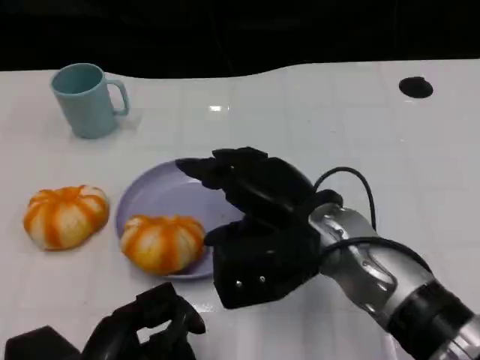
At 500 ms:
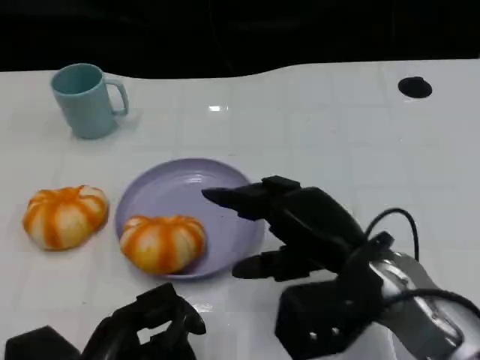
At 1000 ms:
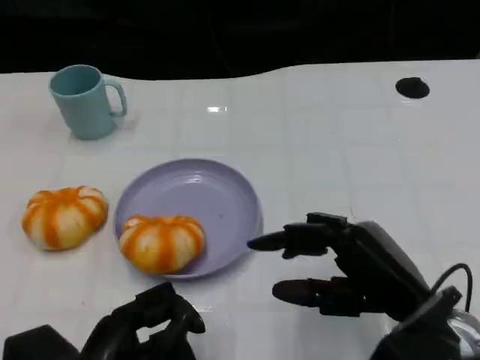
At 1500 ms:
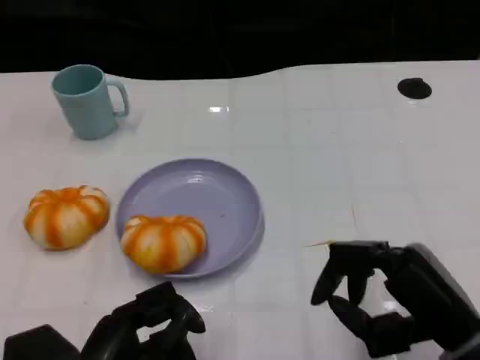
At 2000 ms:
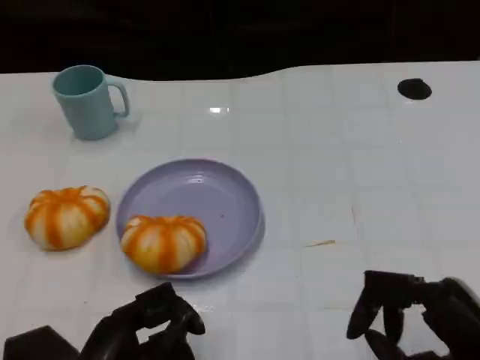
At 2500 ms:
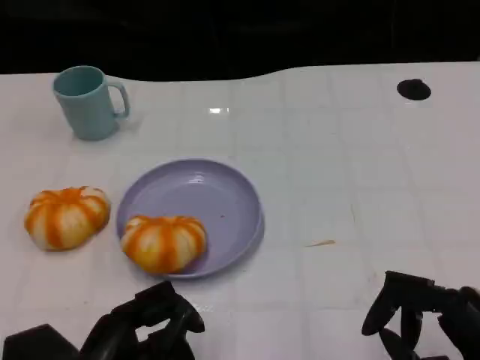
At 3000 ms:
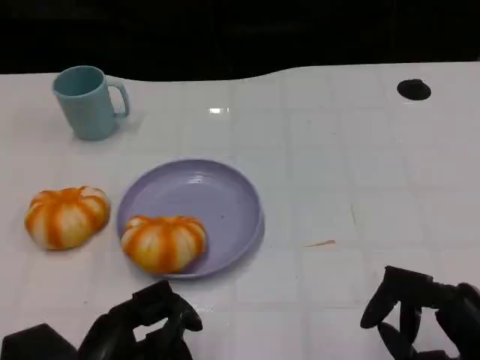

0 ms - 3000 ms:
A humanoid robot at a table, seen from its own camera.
Task of the whole recording: Grasp the bread from the table and place it into the plate.
0 ms - 1500 ms: The right hand travels to the right and backward by approximately 15 cm.
1500 ms - 3000 ms: The hands make only small movements.

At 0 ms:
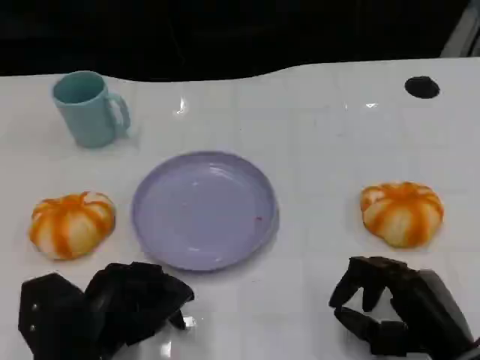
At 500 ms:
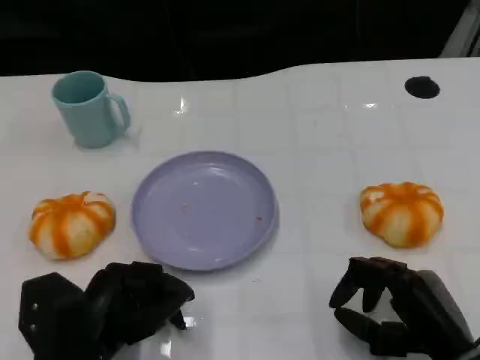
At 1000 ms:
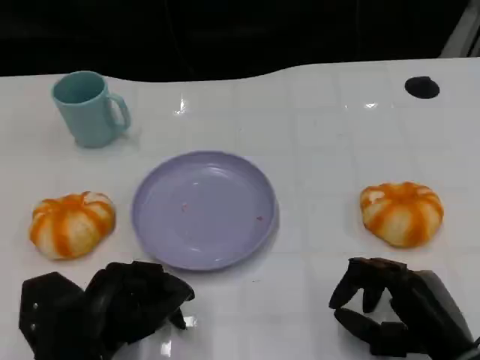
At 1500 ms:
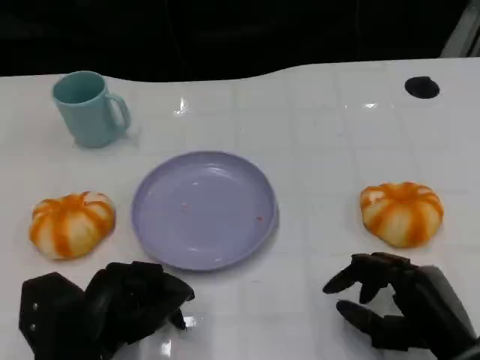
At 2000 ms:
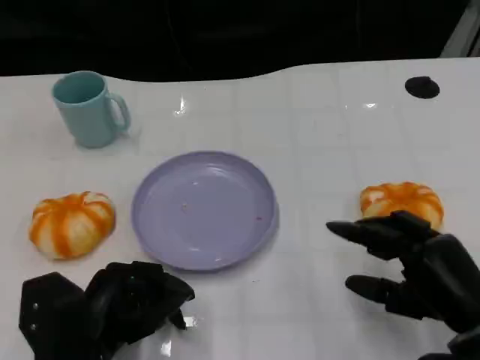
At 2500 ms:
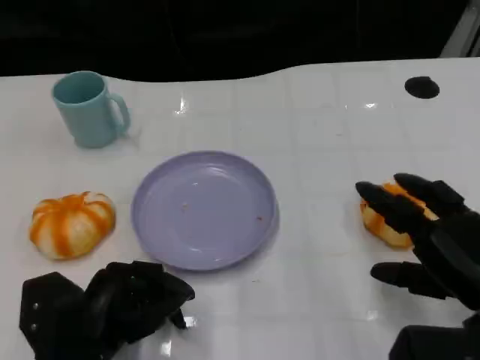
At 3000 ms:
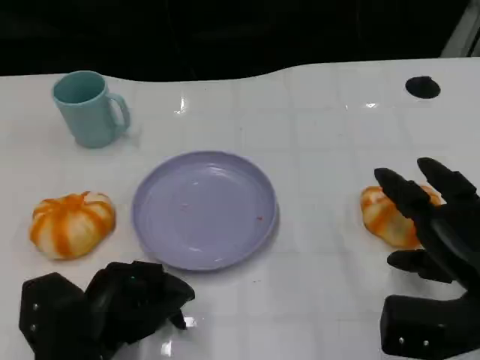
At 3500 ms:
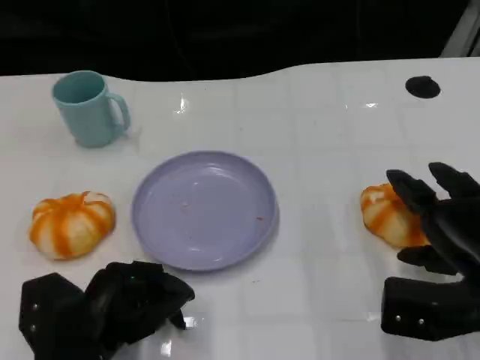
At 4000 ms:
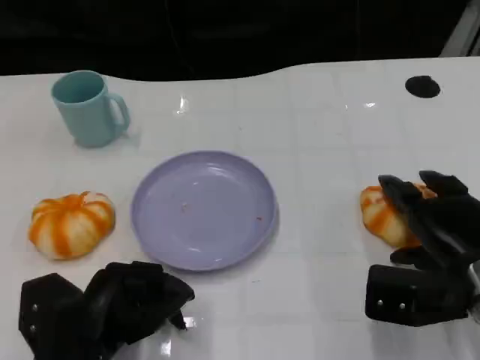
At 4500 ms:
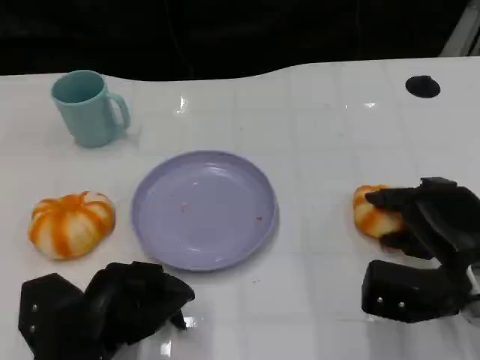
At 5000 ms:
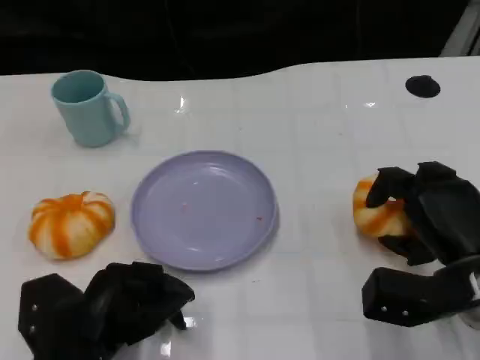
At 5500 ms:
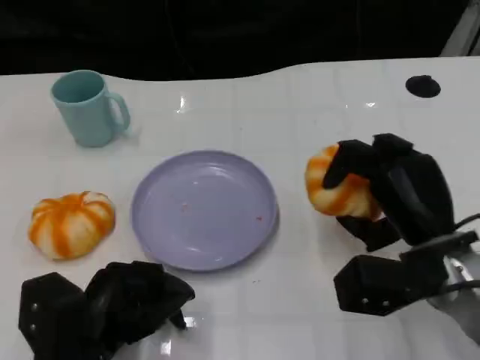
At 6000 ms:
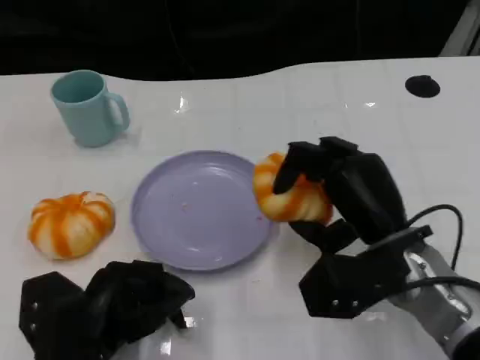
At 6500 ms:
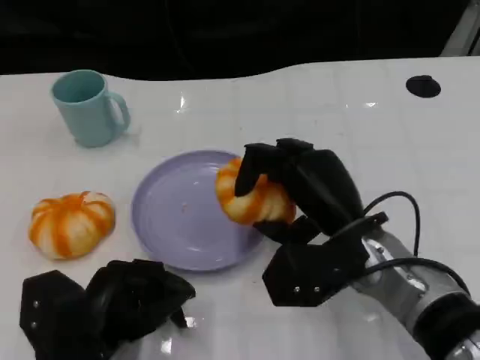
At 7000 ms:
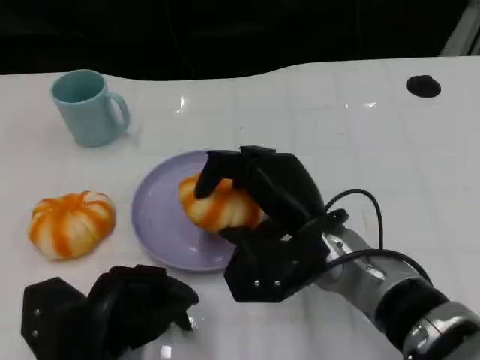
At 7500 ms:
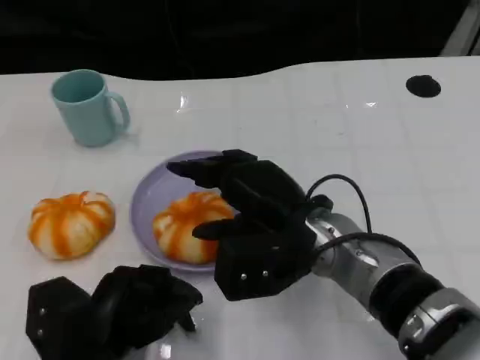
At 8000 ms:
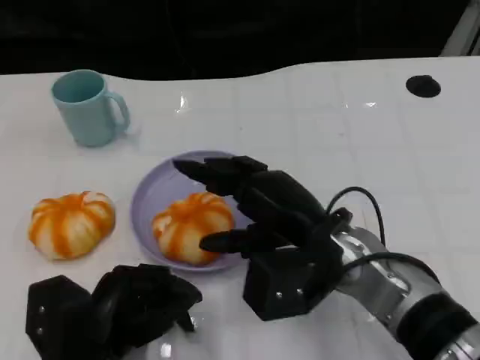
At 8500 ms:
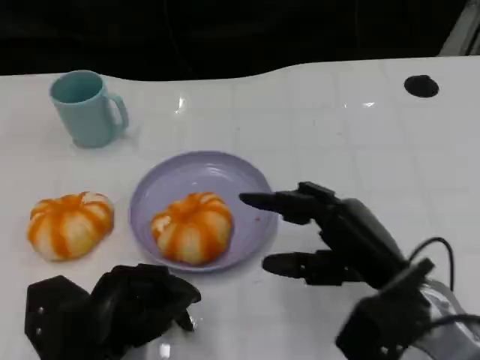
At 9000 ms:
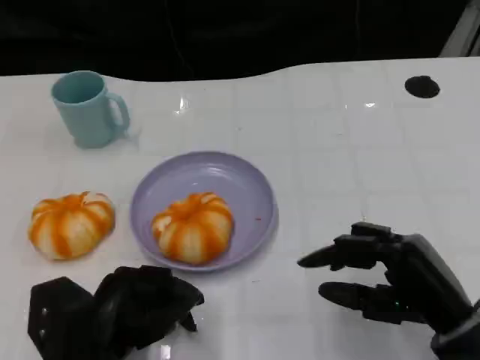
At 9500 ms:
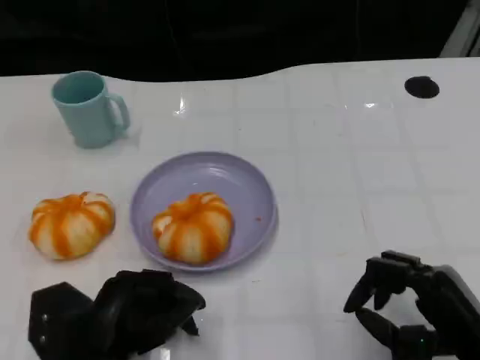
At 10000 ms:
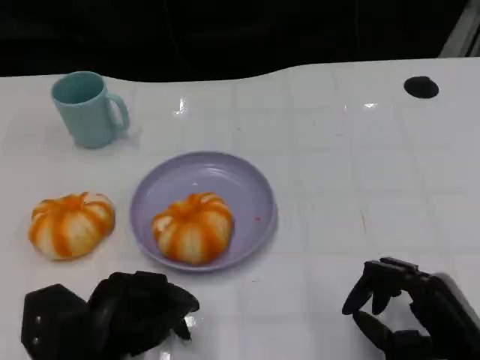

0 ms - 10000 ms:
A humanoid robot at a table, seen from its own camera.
Task of the whole recording: Grasp the bread from the table and place it into the plate.
0 ms - 2000 ms: The hands make only small movements.
2000 ms - 4000 ms: The right hand goes some 5 cm forward.
4000 ms - 6000 ms: The right hand shifts some 10 cm to the left.
8000 ms - 10000 ms: The right hand moves to the right, backward and downward, roughly 20 cm.

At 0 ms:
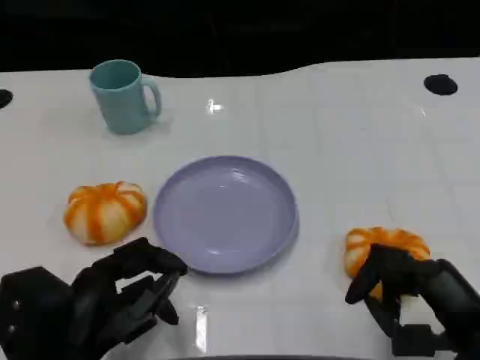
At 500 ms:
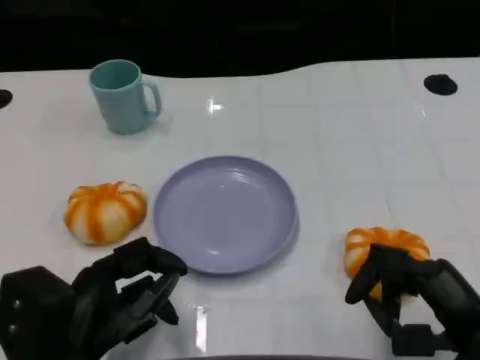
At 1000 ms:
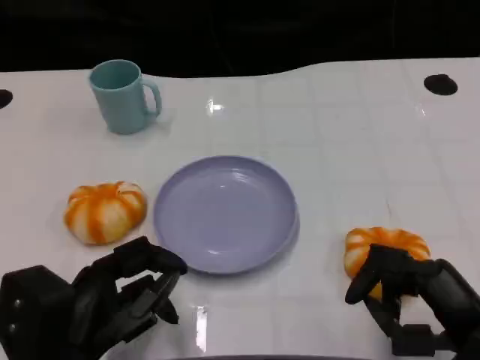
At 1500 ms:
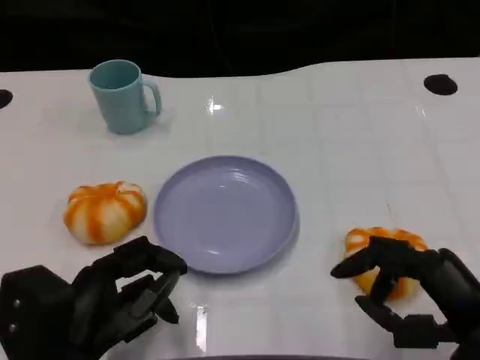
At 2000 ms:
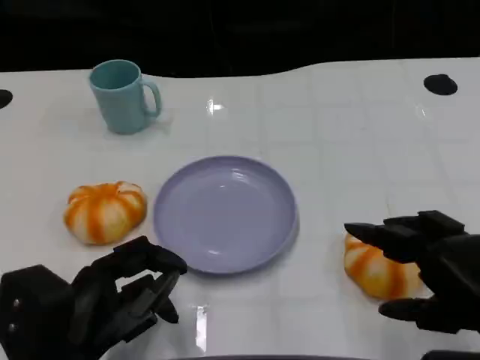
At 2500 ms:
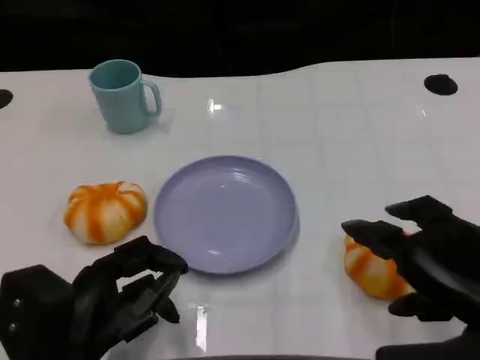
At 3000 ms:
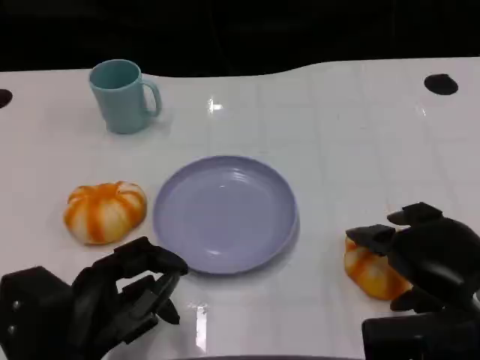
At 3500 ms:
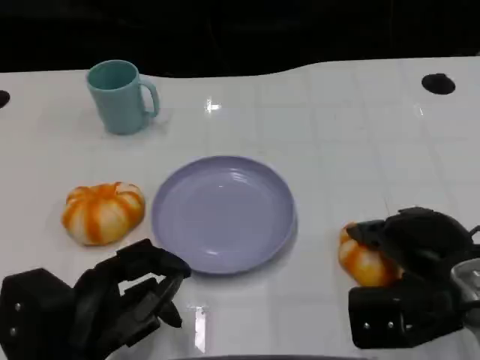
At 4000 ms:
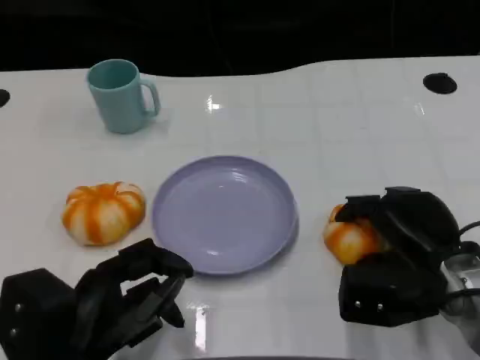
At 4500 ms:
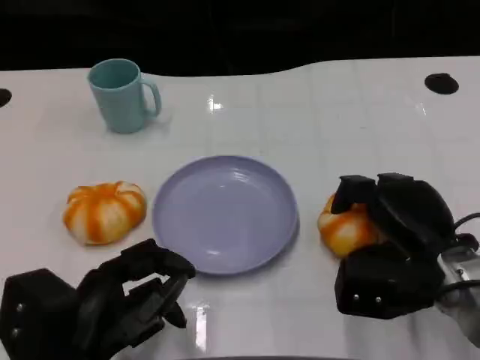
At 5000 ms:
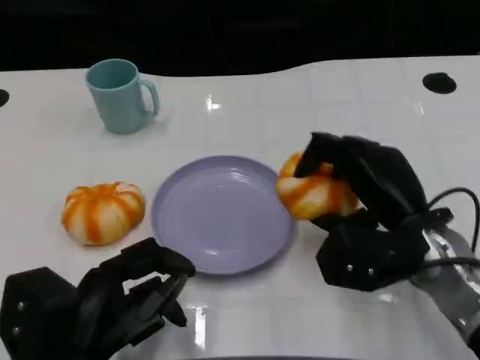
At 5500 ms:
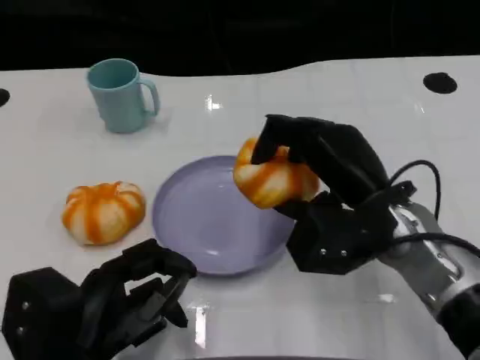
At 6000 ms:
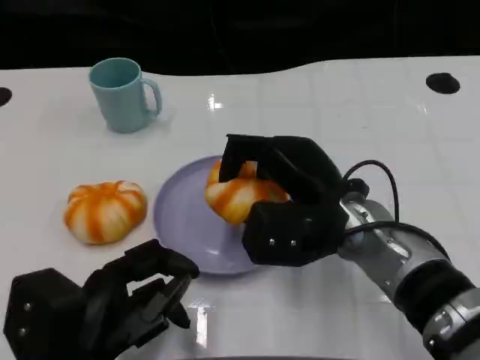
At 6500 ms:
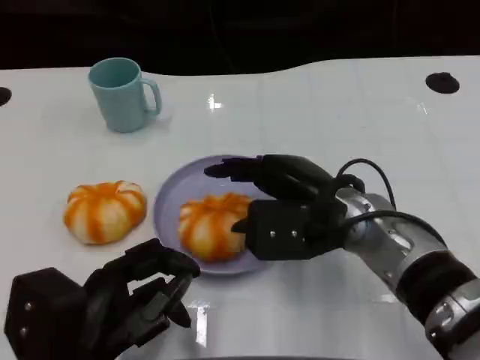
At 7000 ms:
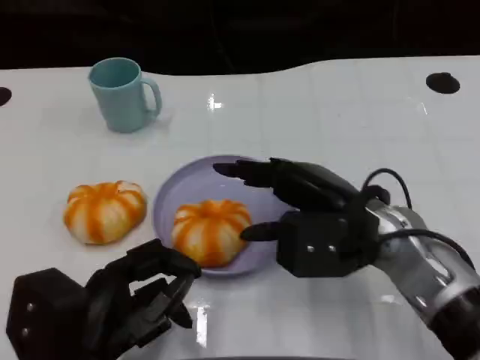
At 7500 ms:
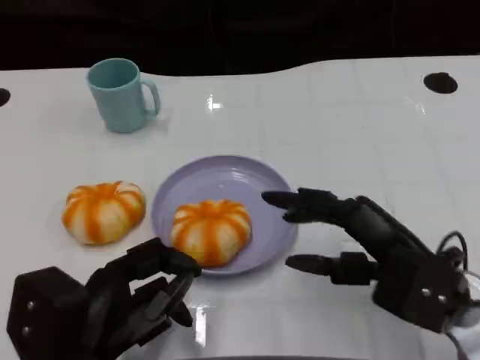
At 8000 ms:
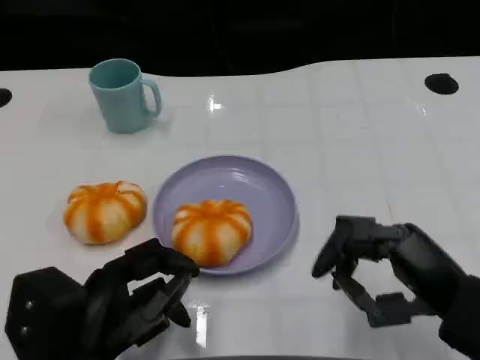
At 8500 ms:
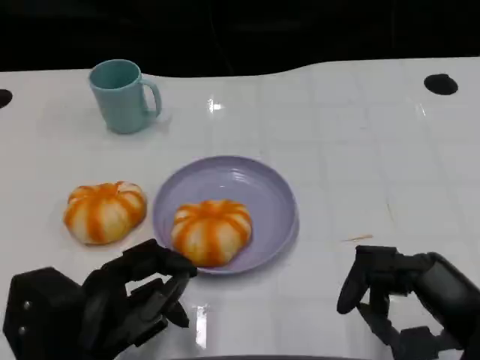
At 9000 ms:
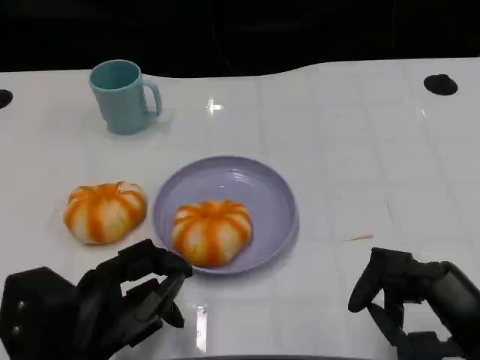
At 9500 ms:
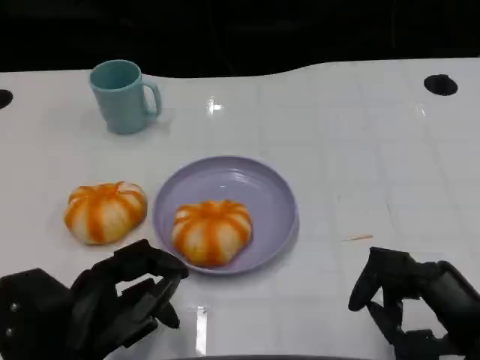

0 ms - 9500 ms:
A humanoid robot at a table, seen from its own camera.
Task of the whole recording: Grasp the bread from the table and place it into the plate.
0 ms - 2000 ms: The right hand goes about 5 cm upward.
2000 ms - 4000 ms: The right hand shifts some 10 cm forward and downward.
4000 ms - 5500 ms: The right hand shifts roughly 10 cm to the left and upward.
5500 ms - 7500 ms: The right hand moves backward and to the right, approximately 10 cm.
7500 ms - 9500 ms: The right hand shifts approximately 5 cm backward.
